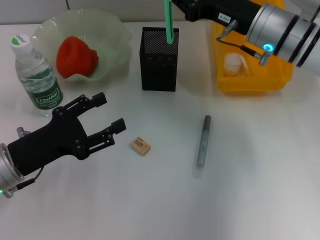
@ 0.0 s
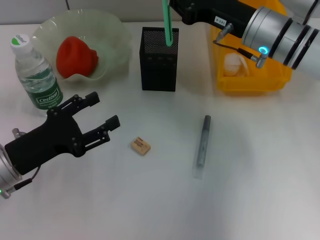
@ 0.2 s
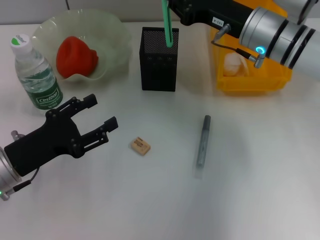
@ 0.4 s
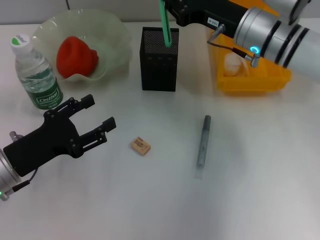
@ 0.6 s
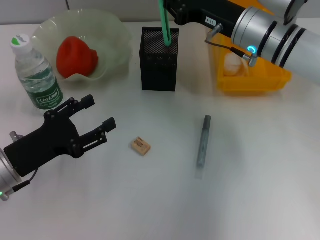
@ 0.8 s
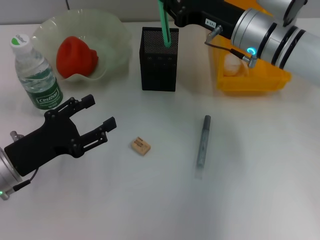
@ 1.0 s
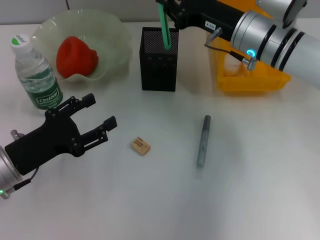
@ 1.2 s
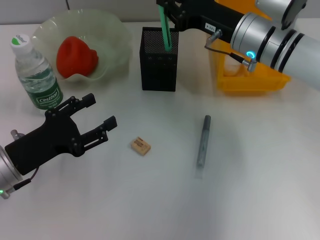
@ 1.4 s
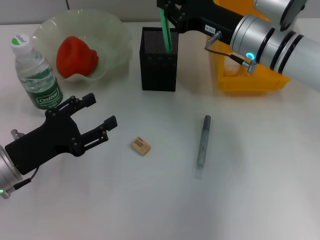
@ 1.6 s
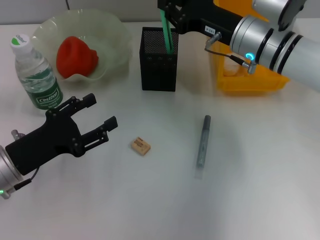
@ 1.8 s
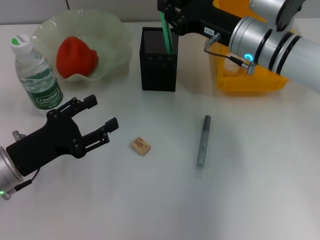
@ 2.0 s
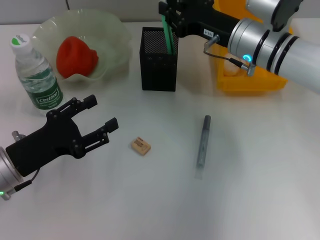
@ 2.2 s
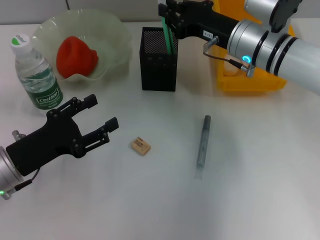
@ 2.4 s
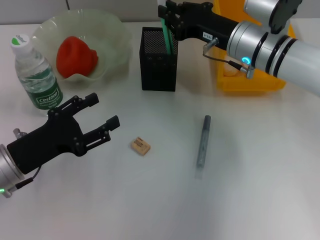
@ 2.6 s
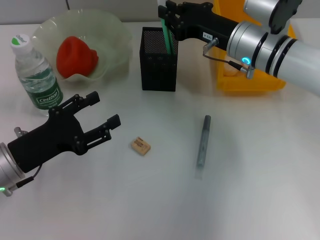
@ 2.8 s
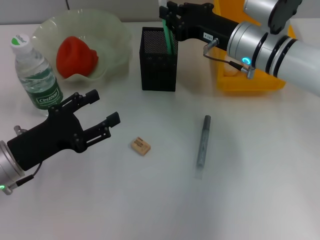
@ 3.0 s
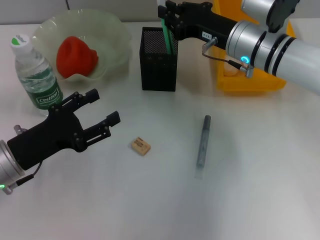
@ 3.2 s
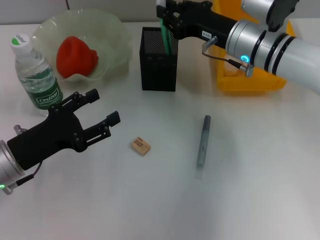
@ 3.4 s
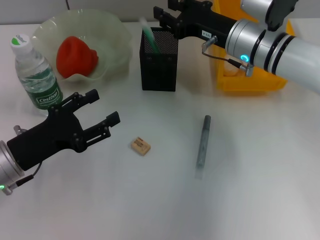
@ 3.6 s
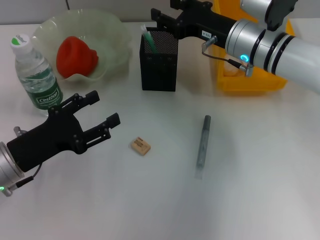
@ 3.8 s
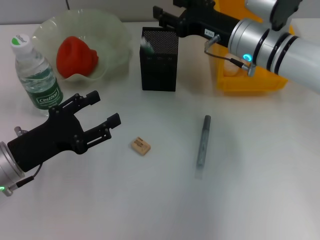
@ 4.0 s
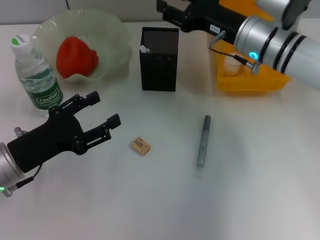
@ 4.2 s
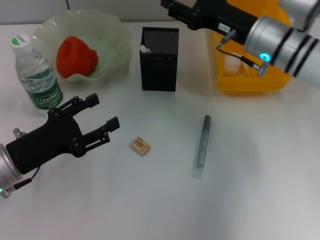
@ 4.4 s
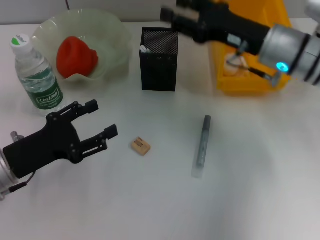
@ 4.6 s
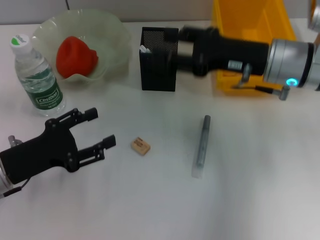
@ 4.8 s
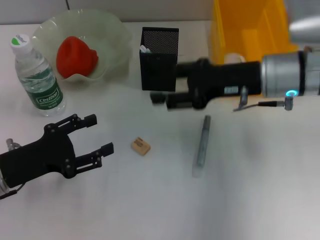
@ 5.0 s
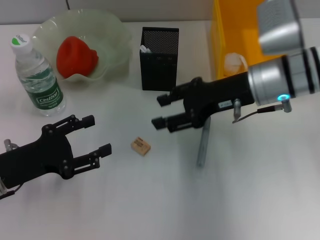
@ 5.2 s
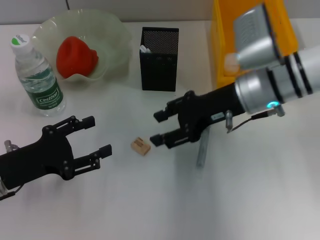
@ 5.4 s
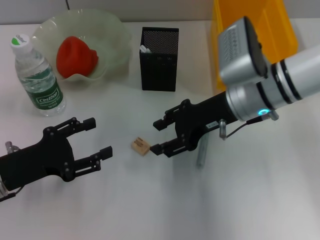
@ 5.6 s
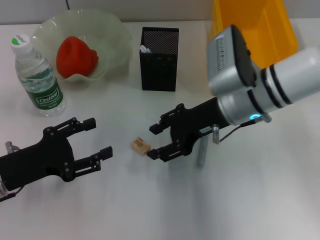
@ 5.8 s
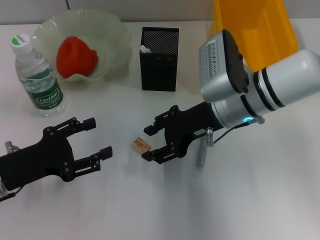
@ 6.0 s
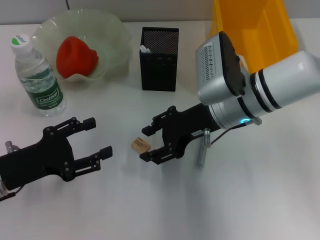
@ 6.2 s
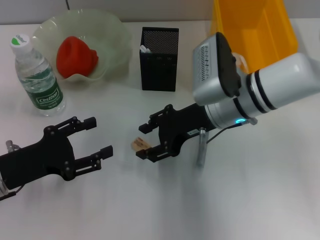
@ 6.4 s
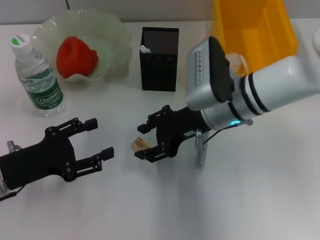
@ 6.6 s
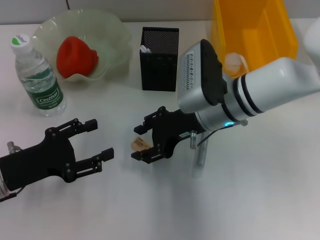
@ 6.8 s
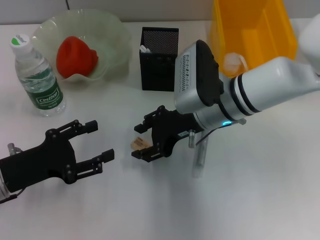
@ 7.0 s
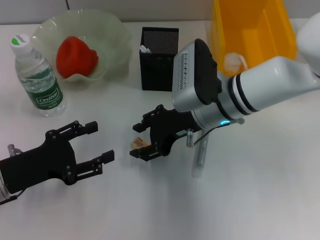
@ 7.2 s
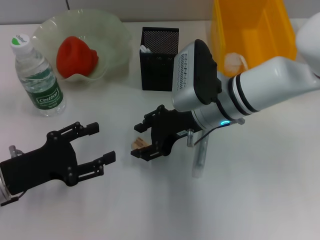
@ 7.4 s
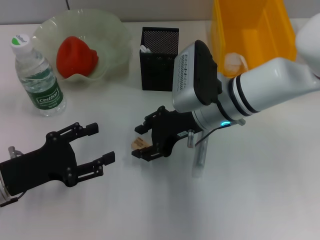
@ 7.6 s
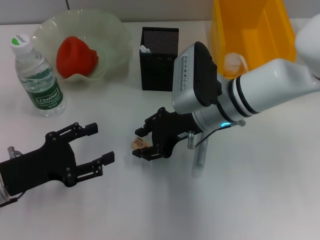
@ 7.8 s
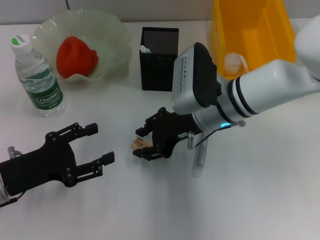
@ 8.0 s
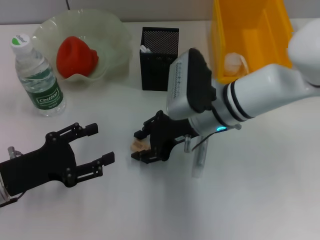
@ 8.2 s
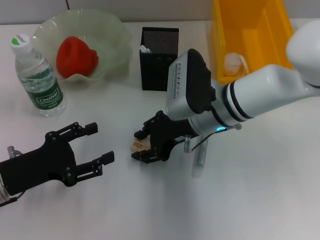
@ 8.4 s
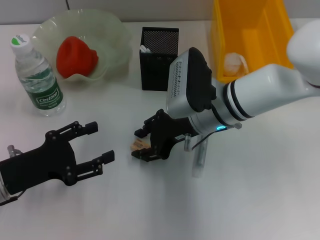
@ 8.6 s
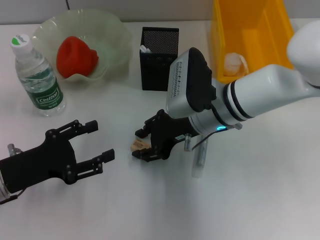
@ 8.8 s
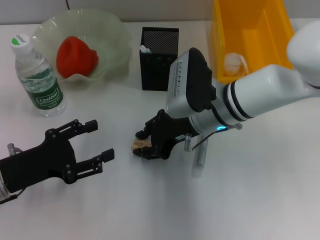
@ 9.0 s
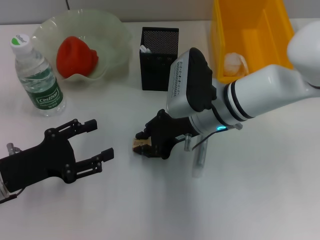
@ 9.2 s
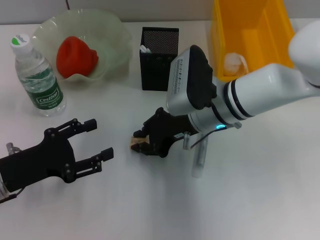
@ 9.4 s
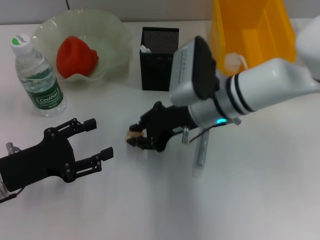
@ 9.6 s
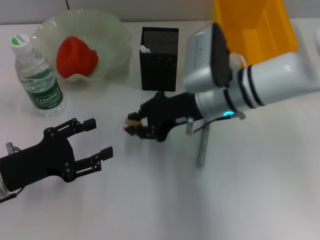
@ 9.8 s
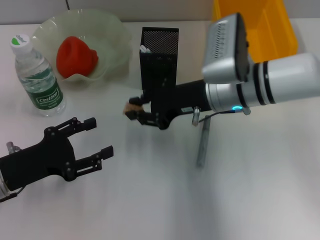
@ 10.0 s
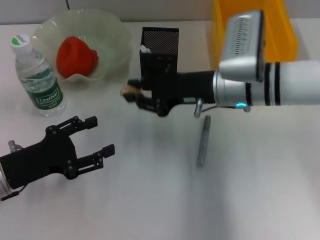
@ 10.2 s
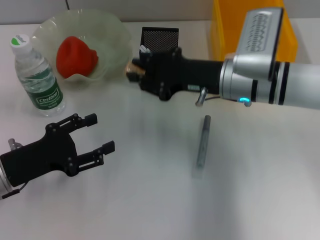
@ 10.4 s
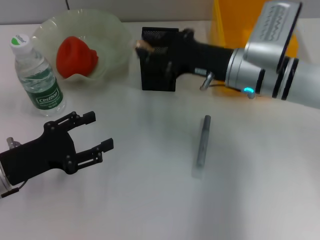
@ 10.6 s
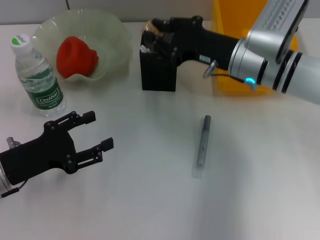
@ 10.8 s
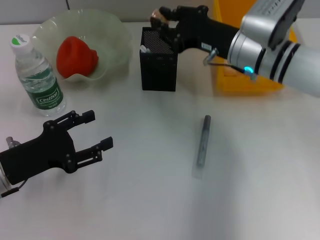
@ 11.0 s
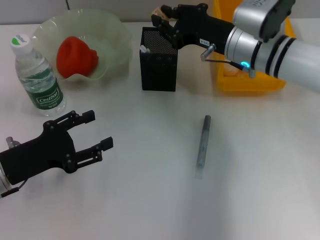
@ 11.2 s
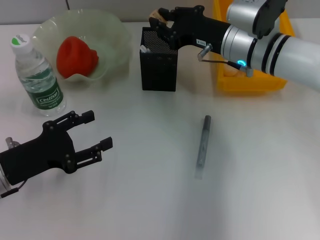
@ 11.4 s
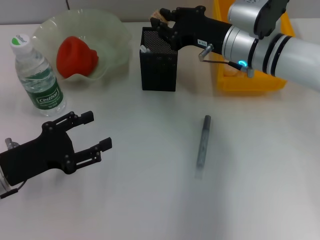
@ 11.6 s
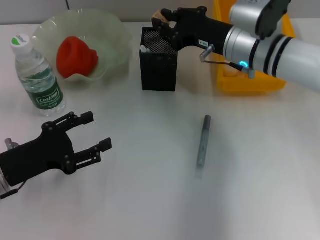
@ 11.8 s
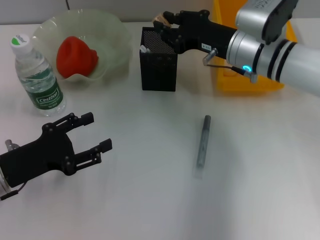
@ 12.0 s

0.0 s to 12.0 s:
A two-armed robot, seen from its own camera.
Step, 0.0 to 3.6 s: Place the blue utility knife into the pen holder with the right hand.
Step, 4.0 to 9.4 s: Grab the eraser with the right hand.
0.0 to 3.0 s: The grippers stay close to where they were, moving slightly.
3.0 to 4.4 s: The right gripper opens up.
4.4 to 6.0 s: The right gripper heads to the left, covering about 5 cm.
6.0 to 7.6 s: The grippers move only a little.
7.6 to 9.0 s: Both grippers stay put.
9.0 to 10.4 s: The right gripper shifts by roughly 5 cm.

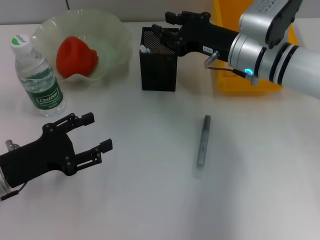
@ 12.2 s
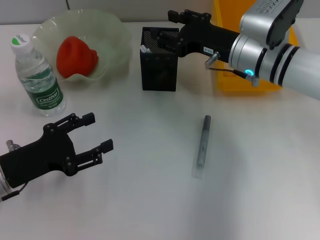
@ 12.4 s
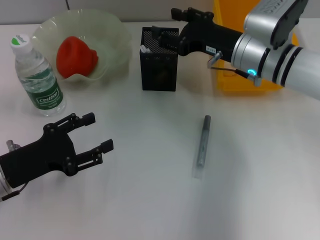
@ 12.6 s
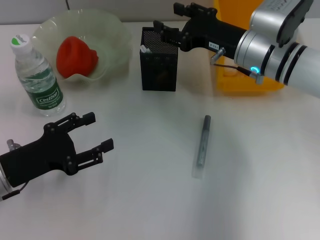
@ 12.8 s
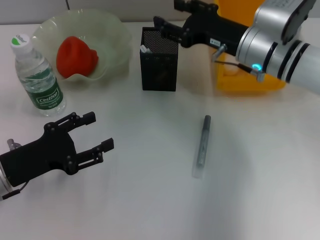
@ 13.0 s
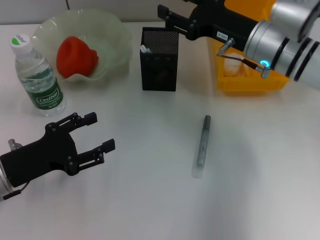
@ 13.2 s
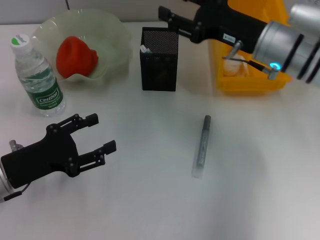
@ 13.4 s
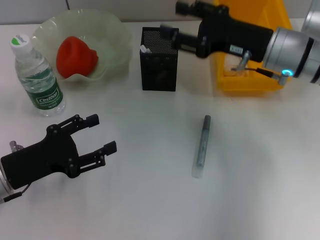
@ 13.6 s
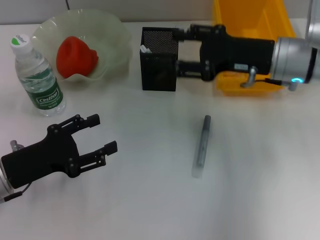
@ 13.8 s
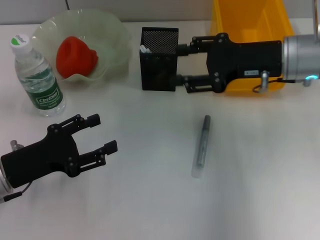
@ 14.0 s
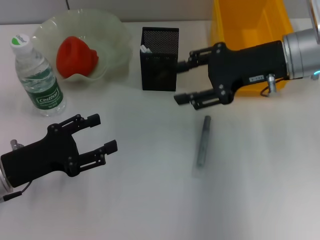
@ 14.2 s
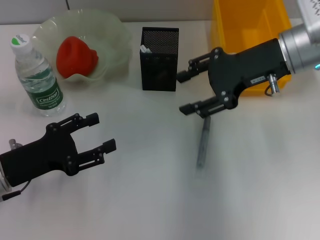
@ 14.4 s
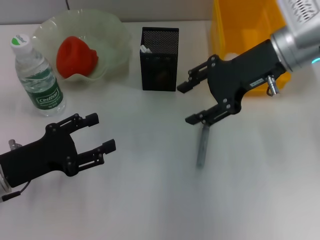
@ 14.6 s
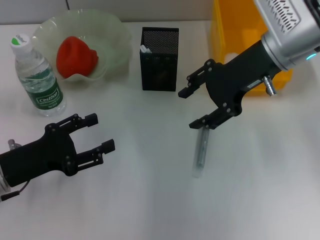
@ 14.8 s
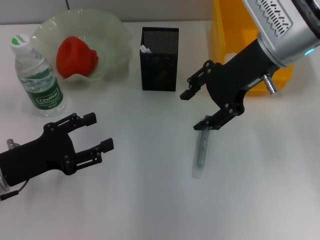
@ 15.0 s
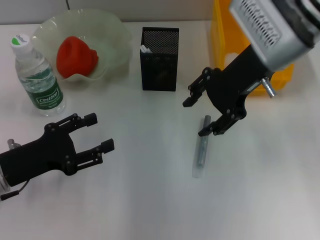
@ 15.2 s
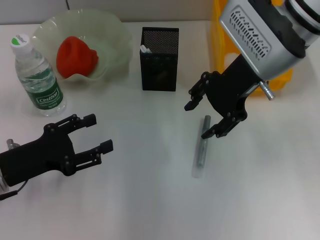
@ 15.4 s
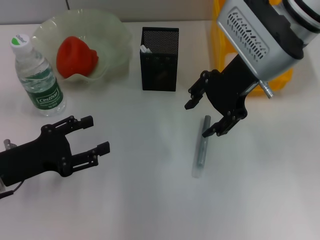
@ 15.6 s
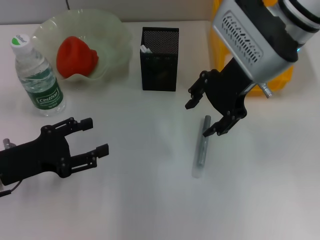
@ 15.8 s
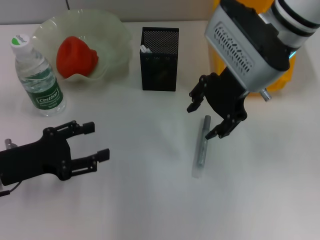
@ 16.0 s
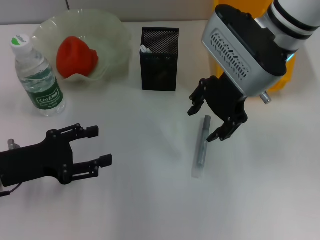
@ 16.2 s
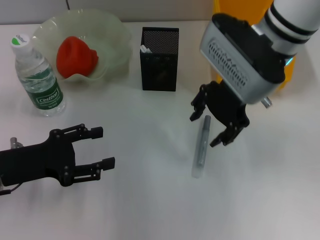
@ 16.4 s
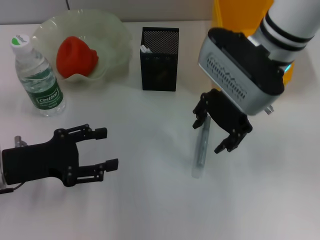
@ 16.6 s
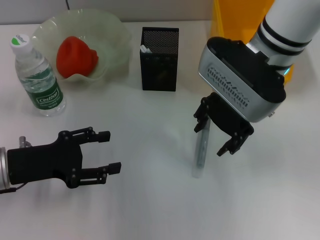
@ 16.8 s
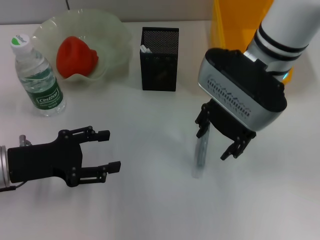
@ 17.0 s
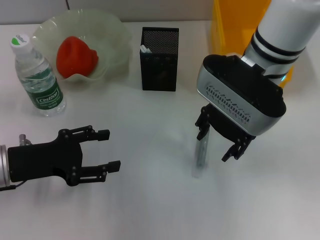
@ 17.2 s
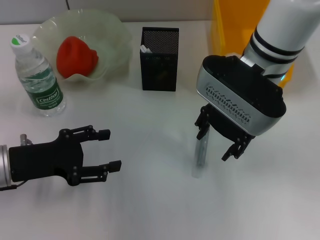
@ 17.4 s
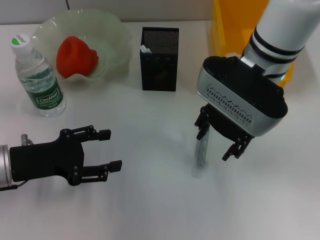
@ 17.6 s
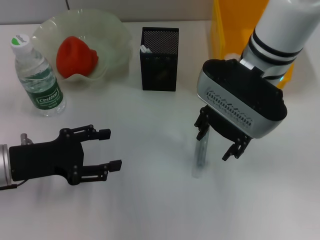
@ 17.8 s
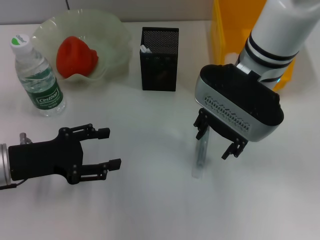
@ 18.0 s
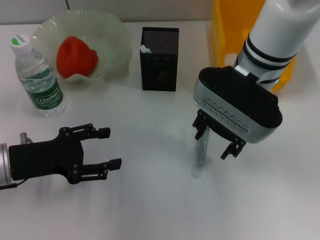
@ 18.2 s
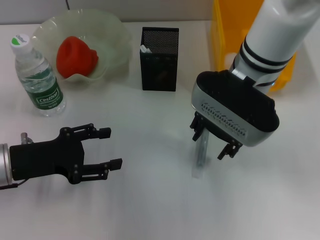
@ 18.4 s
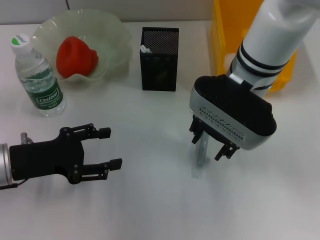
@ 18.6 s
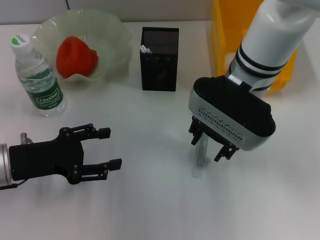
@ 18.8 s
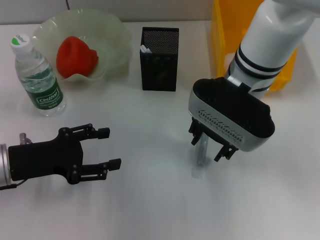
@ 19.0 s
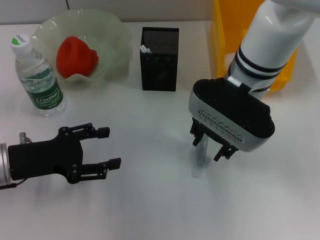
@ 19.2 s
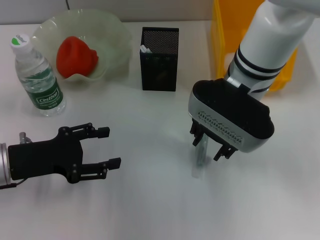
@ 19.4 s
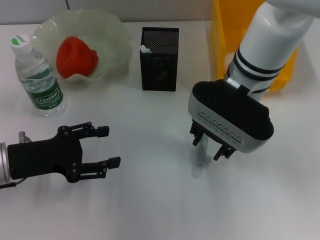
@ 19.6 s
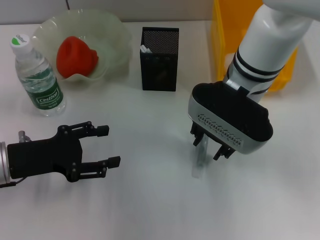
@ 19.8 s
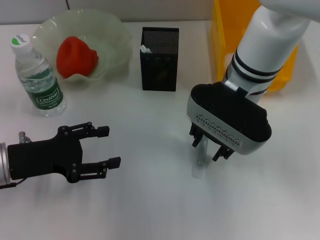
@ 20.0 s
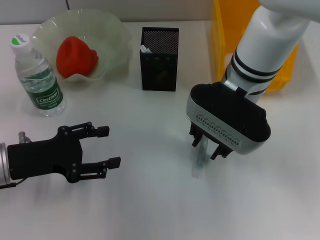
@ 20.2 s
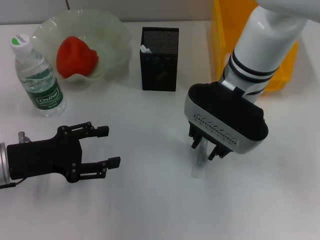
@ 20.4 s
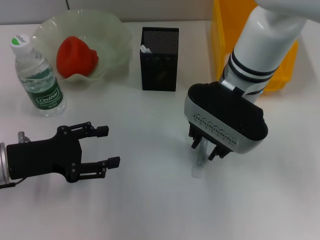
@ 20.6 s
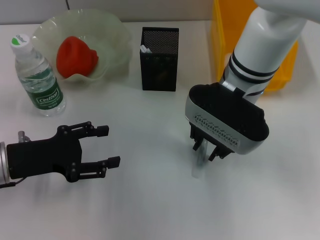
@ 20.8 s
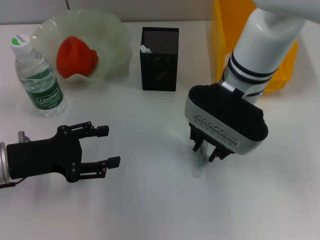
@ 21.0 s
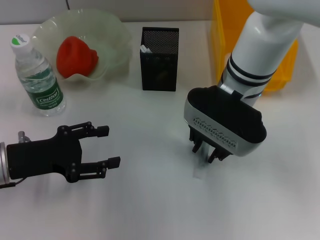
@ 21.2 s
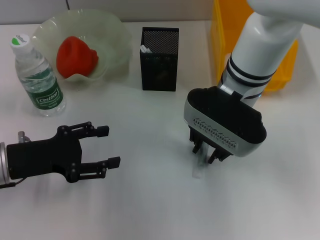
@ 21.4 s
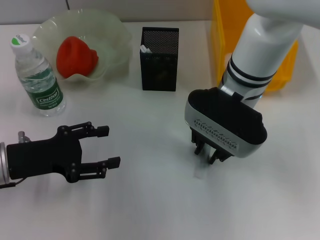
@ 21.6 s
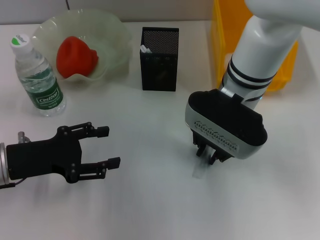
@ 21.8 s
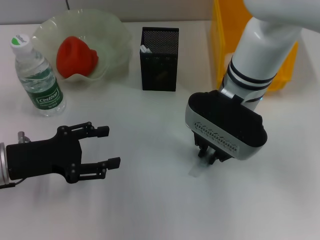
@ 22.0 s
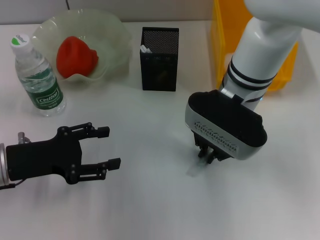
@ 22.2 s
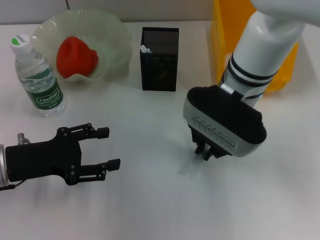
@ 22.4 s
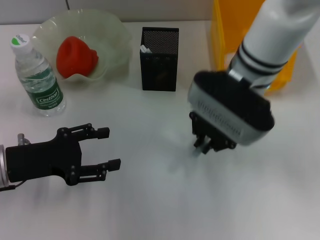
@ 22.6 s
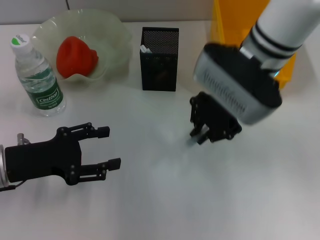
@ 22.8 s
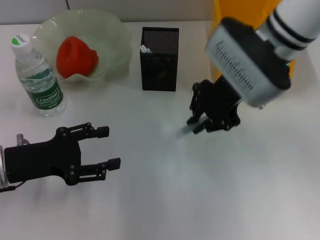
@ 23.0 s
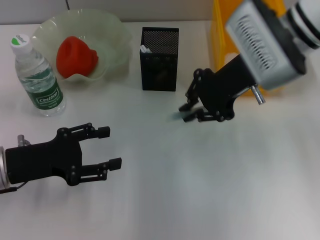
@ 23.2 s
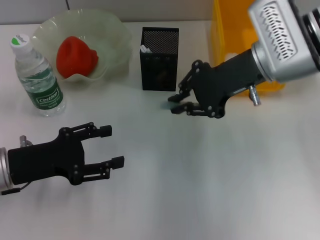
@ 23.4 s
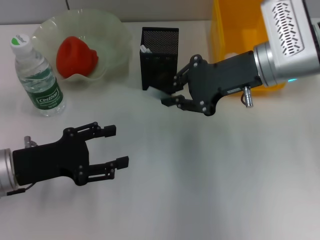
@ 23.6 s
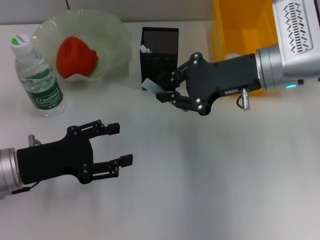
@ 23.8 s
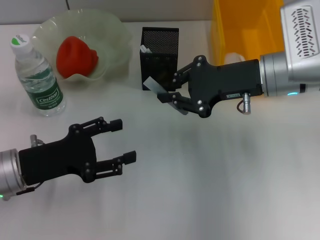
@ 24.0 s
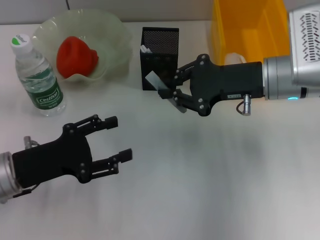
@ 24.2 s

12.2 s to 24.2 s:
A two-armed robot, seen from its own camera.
Step, 12.6 to 22.0 s: Grab the gray glue with the right hand.
12.2 to 13.8 s: The right gripper shifts by some 5 cm, and opens its fingers.
13.8 to 15.2 s: The right gripper goes roughly 10 cm upward and to the left.
15.2 to 16.6 s: The grippers move only a little.
16.6 to 19.8 s: The grippers move only a little.
19.8 to 21.2 s: The two grippers keep their place.
21.2 to 22.6 s: The grippers stay close to where they were, moving slightly.
22.6 to 24.2 s: The right gripper heads to the right, covering approximately 10 cm.
